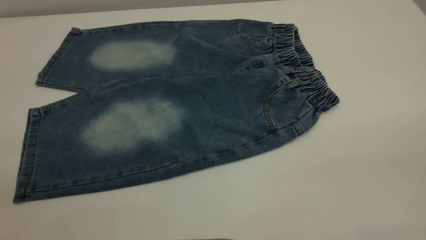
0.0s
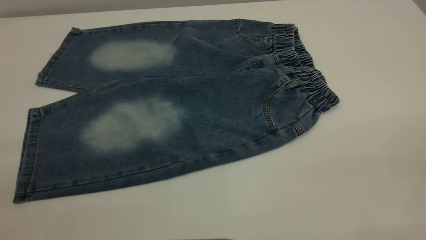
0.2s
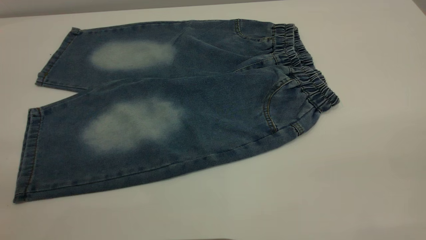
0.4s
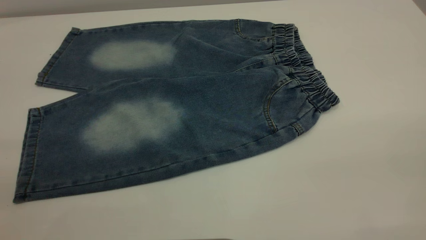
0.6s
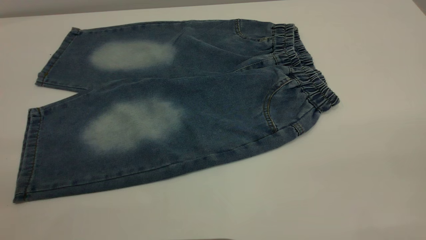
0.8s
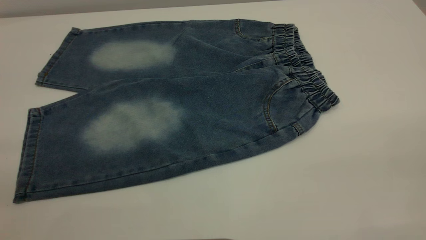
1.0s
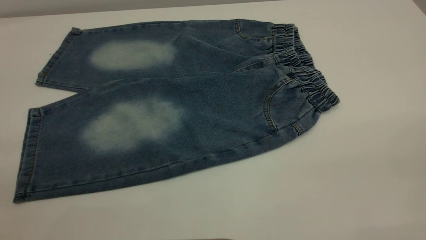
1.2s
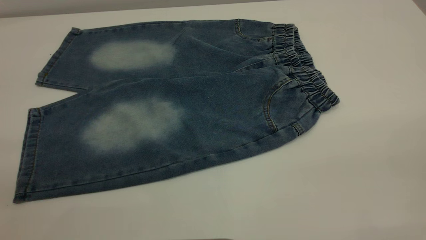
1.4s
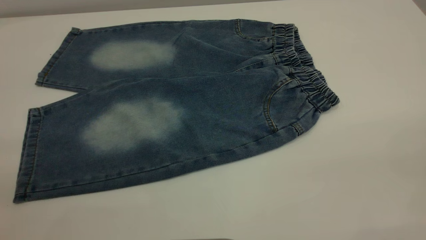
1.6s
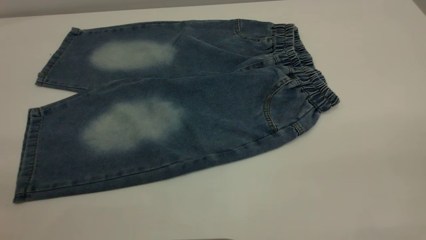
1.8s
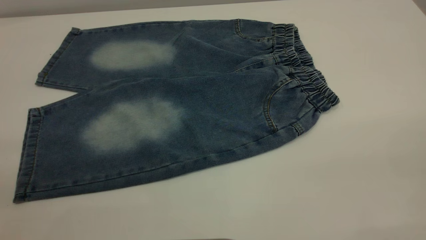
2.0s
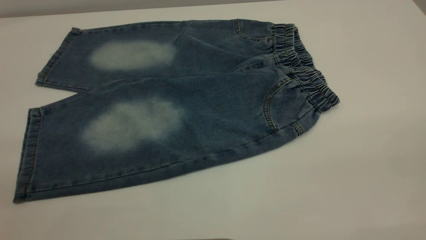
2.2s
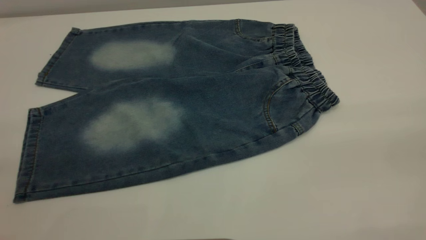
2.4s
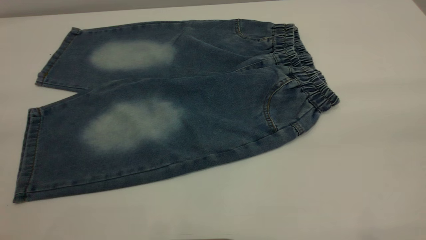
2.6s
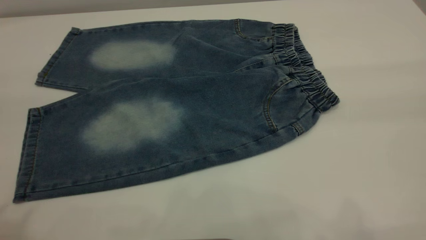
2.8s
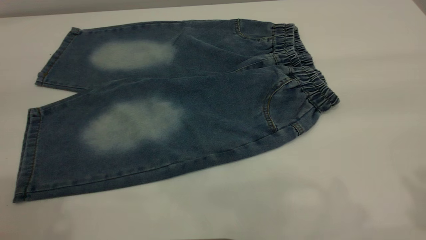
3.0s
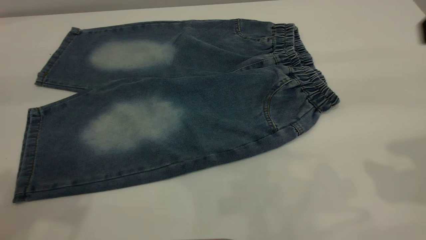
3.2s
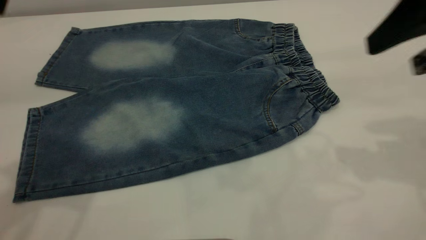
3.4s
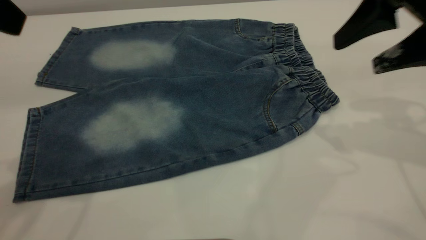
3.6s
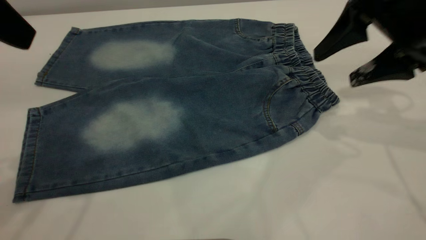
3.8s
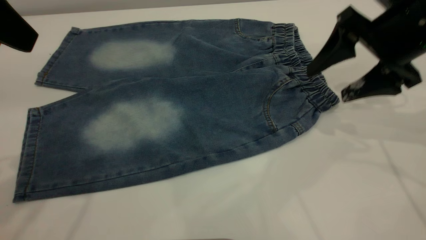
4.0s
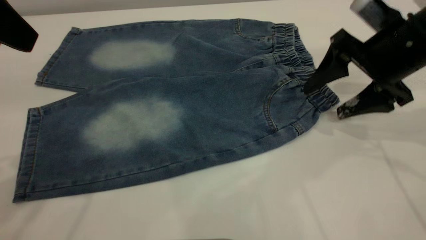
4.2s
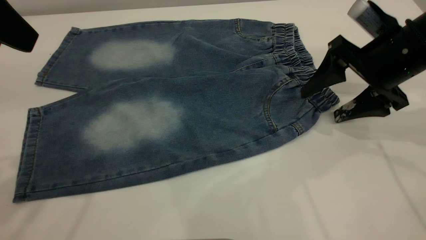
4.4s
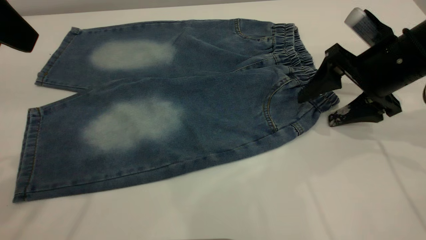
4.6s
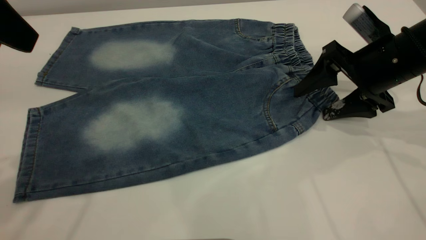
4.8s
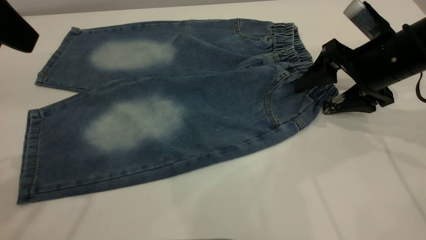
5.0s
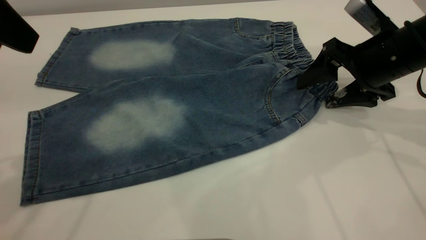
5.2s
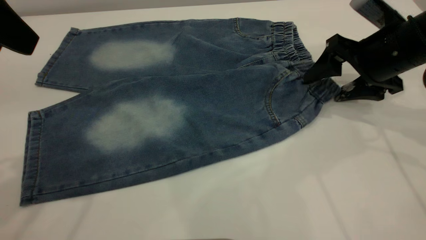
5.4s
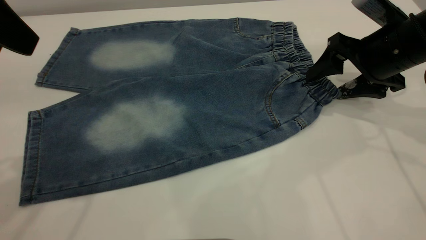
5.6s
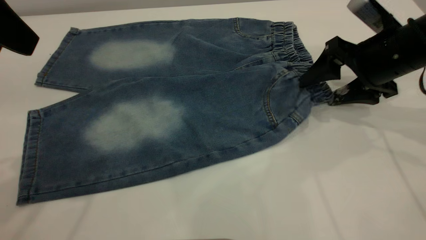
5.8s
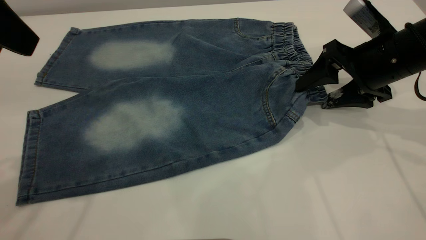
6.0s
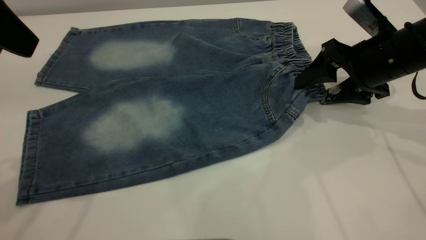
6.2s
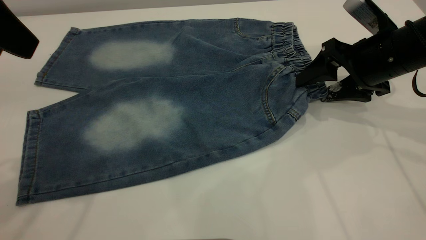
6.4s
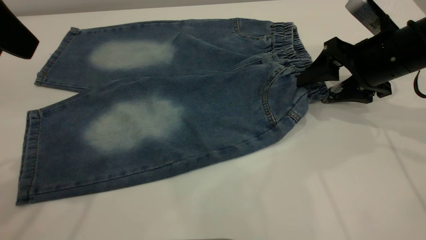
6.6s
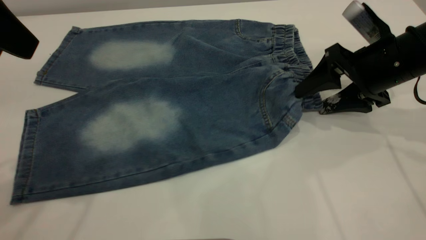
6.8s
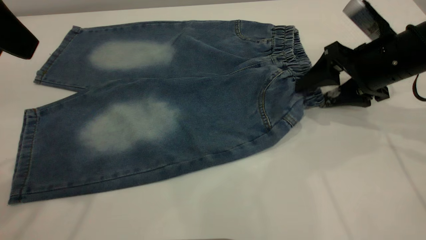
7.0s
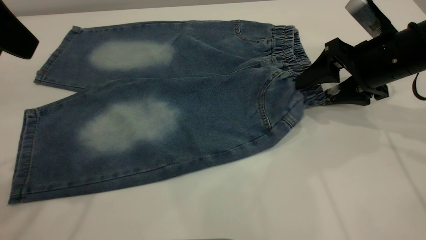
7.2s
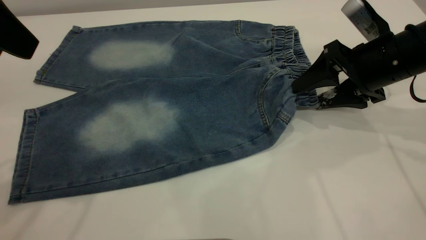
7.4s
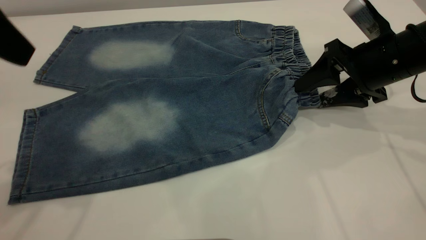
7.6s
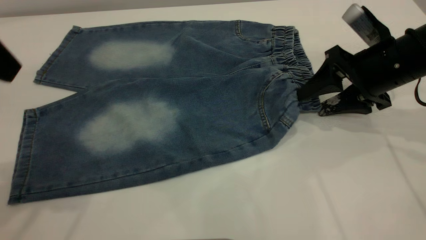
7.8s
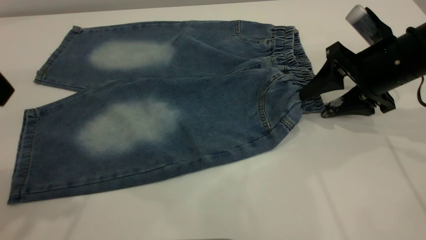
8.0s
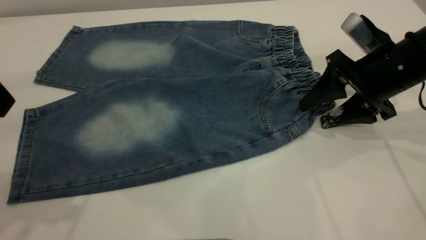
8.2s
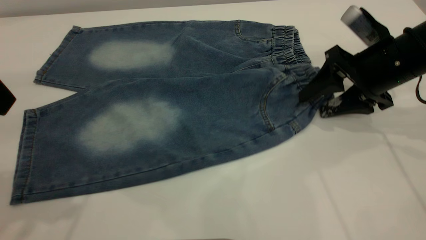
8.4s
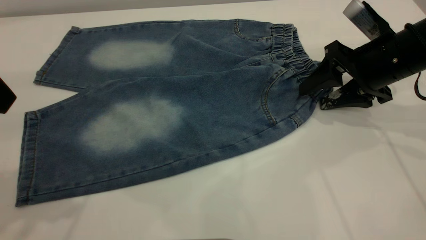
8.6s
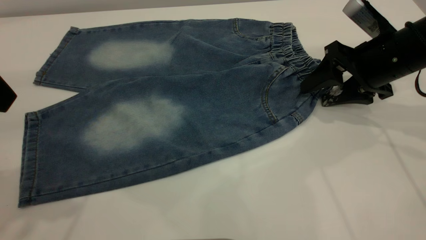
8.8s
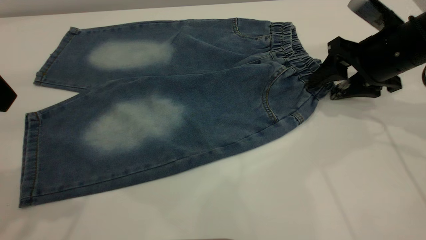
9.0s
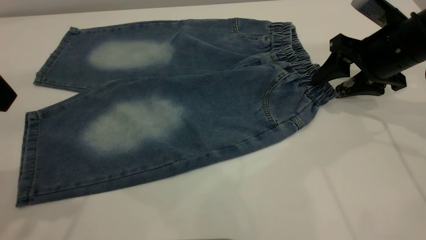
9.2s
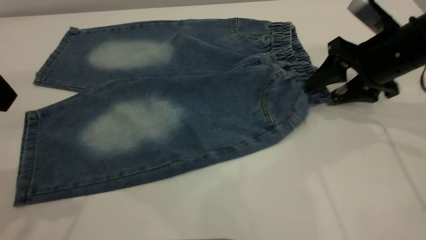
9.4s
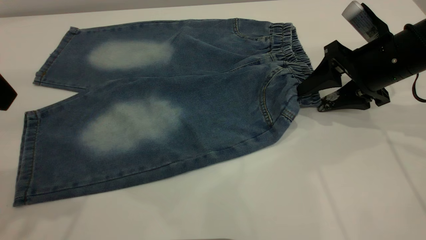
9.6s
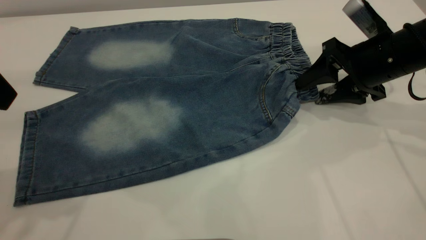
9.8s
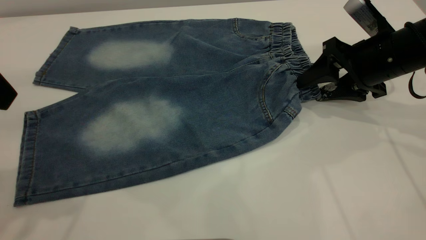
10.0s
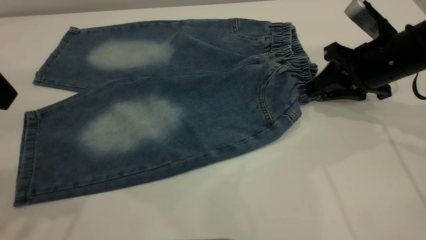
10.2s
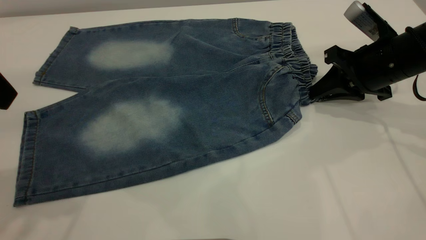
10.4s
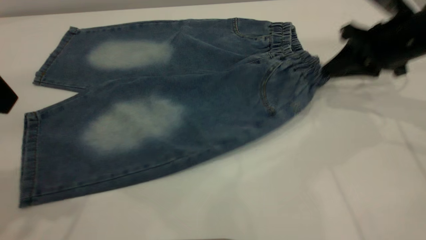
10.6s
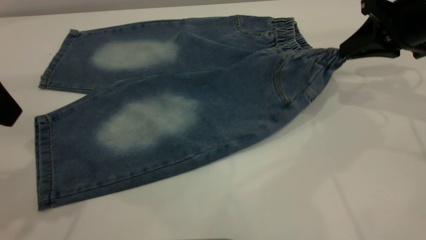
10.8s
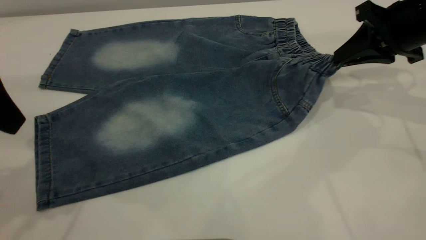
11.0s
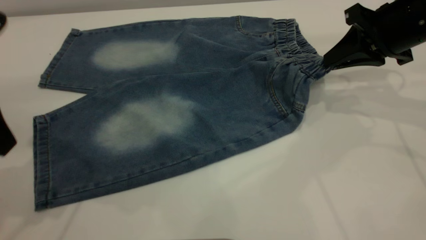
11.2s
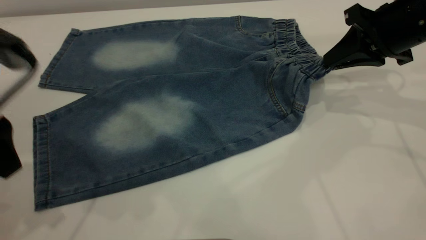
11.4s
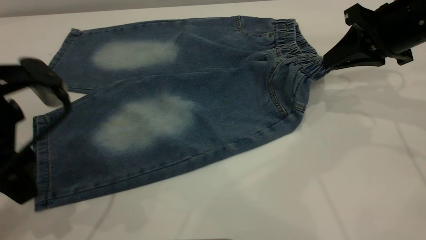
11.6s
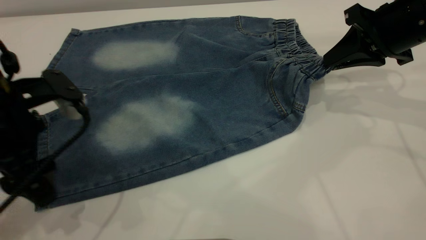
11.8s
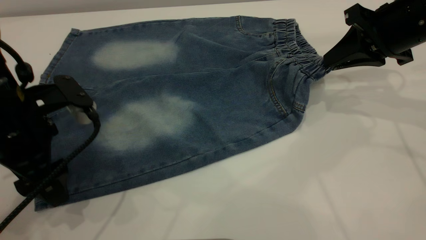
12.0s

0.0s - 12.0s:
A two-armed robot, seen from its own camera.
0.0s - 1.6s: Both grippers stay put.
3.0s - 4.4s: The right gripper moves downward and forward, approximately 25 cm; the left gripper moves downward and forward, about 10 cm.
4.4s - 9.0s: The grippers move only a little.
9.0s - 10.4s: The right gripper closes its fingers.
10.4s - 12.0s: The left gripper shifts approximately 15 cm downward; the right gripper moves upward, roughly 5 cm.

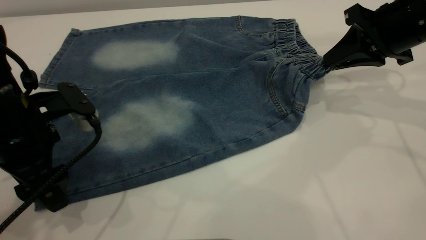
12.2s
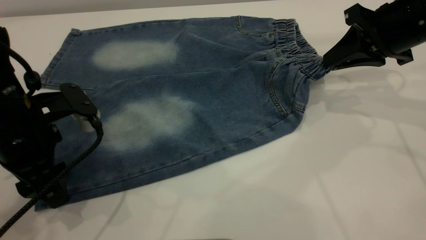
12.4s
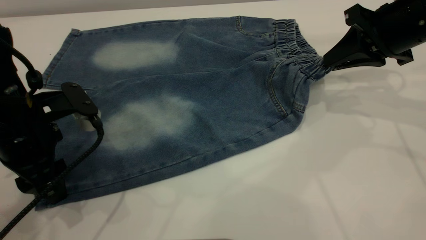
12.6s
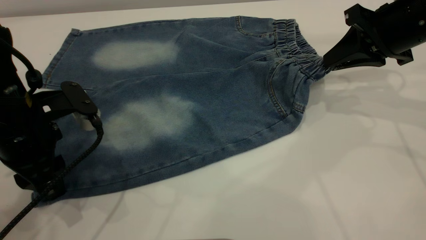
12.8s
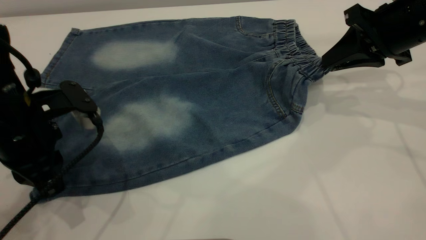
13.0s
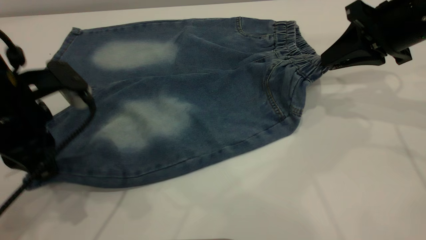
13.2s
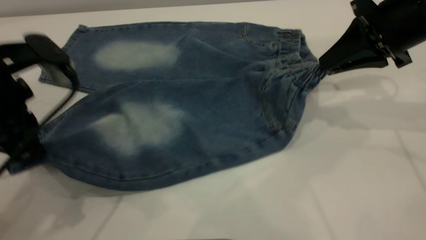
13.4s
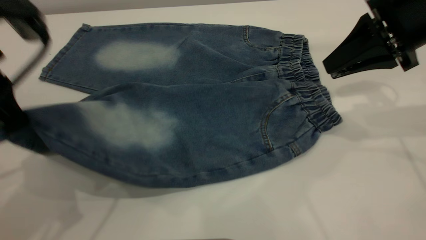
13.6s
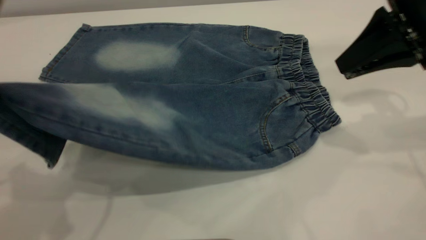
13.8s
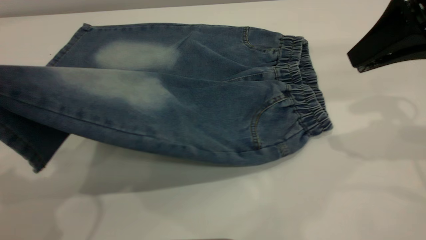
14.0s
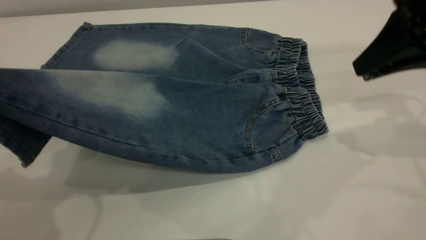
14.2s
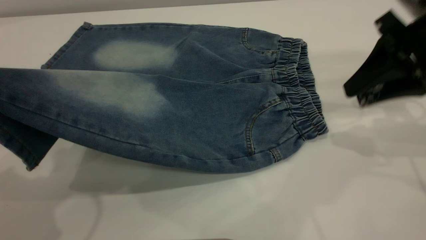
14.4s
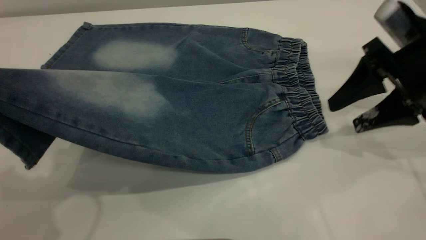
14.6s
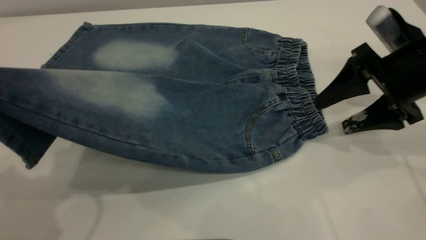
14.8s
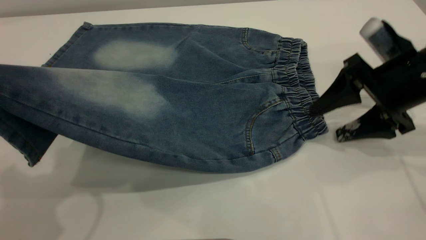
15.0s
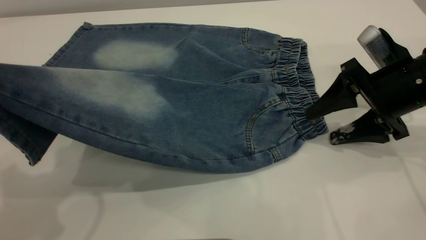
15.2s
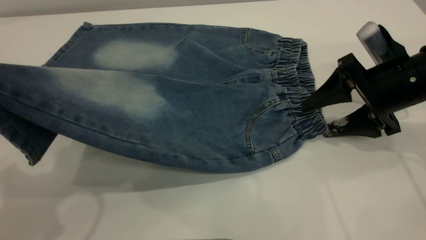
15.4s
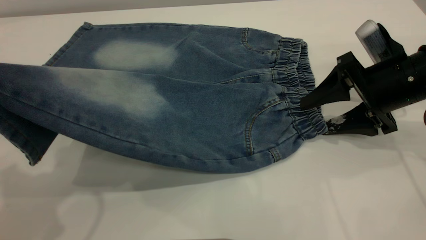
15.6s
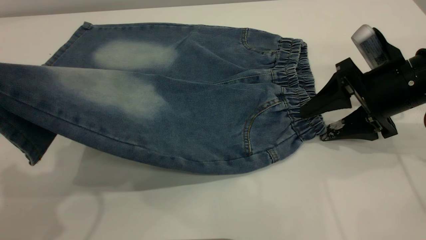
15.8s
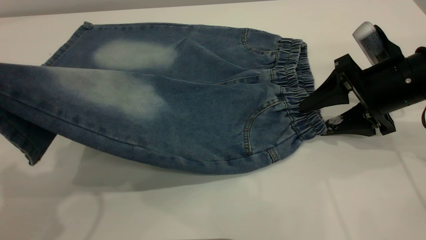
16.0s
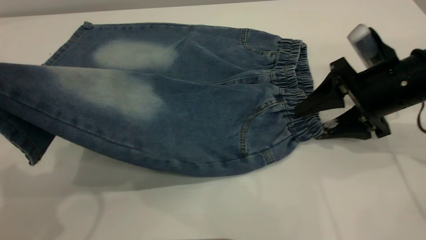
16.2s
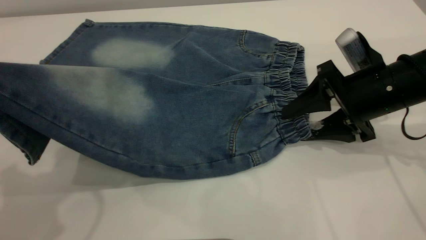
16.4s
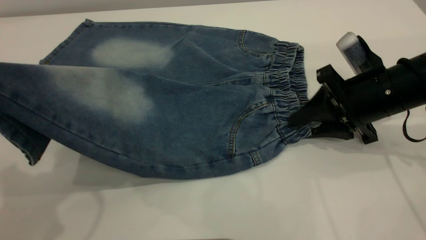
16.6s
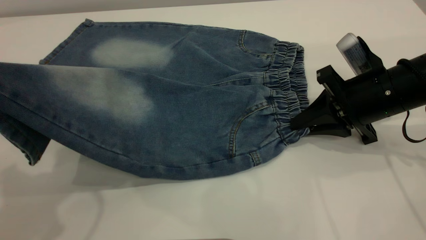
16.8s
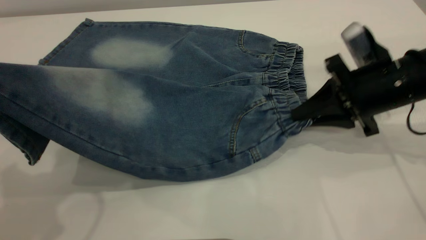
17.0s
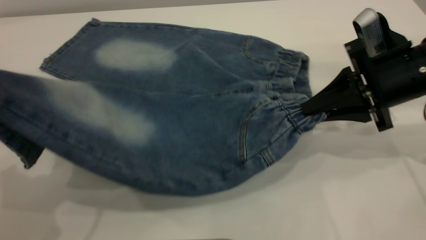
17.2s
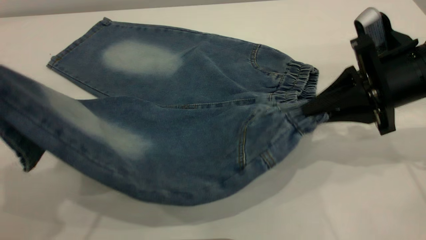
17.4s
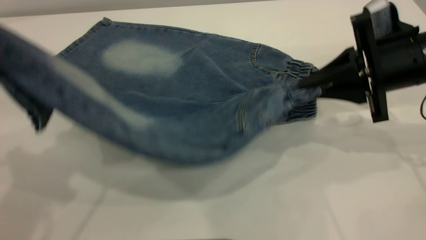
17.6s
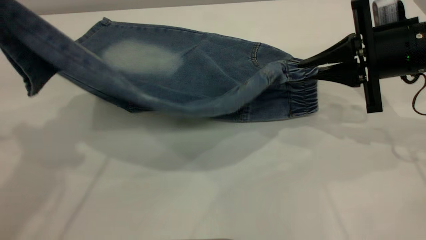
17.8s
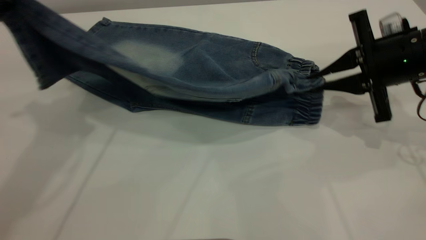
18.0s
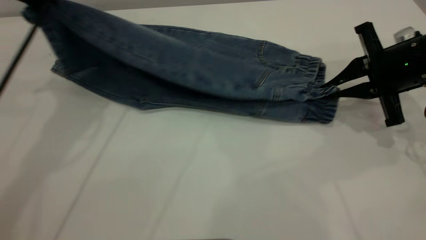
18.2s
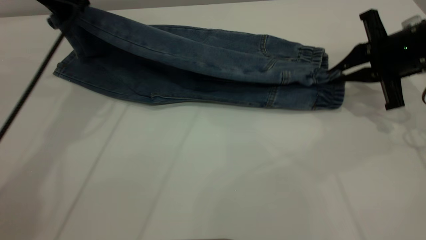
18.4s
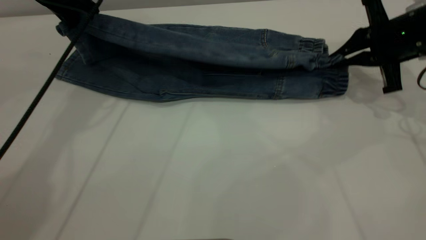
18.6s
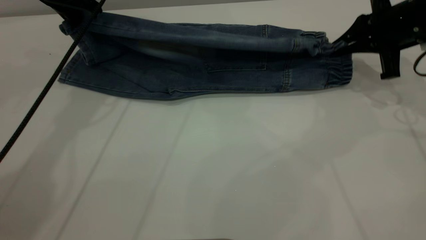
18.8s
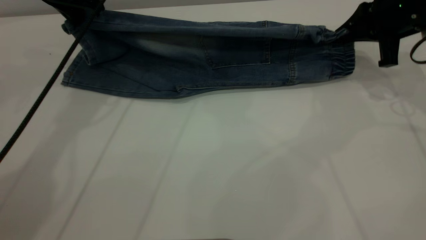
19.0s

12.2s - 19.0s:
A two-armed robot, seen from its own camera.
12.2s - 13.6s: The left gripper moves upward, approximately 10 cm, and closes.
13.6s - 15.0s: The left gripper shifts approximately 5 cm upward, while the right gripper shifts approximately 10 cm downward, and opens.
15.0s - 16.2s: The grippers make only small movements.
16.2s - 17.6s: The right gripper closes up.
17.6s - 19.0s: The right gripper shifts about 10 cm forward and to the right, while the left gripper moves forward and downward, some 25 cm.
